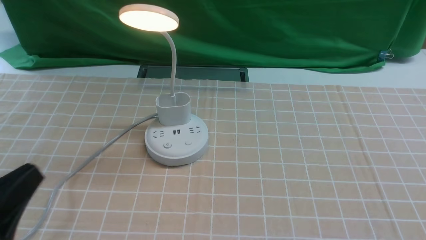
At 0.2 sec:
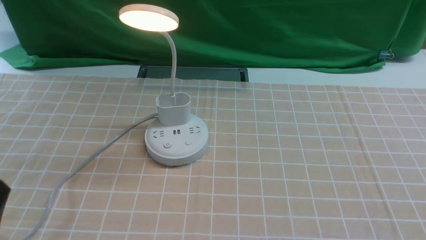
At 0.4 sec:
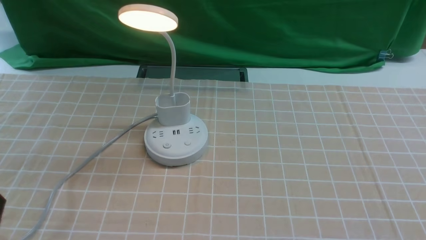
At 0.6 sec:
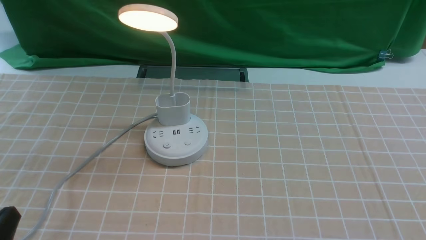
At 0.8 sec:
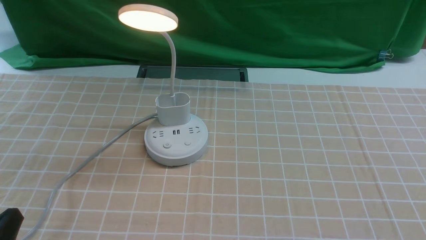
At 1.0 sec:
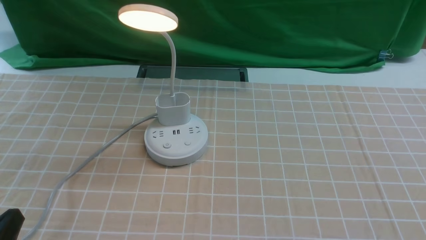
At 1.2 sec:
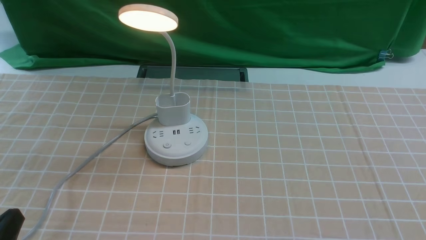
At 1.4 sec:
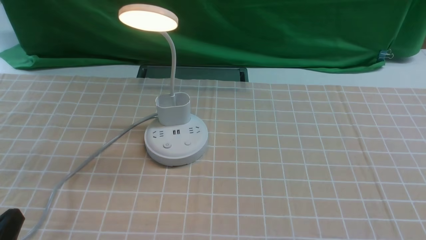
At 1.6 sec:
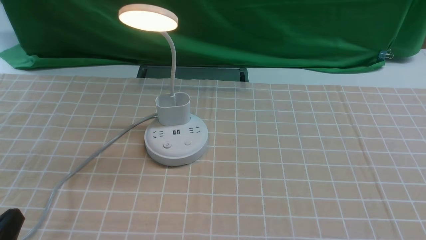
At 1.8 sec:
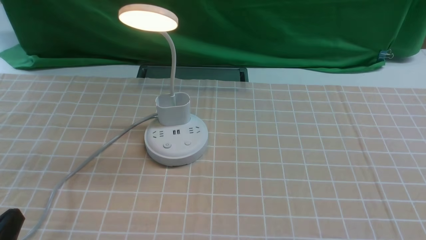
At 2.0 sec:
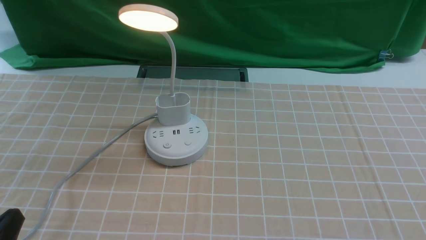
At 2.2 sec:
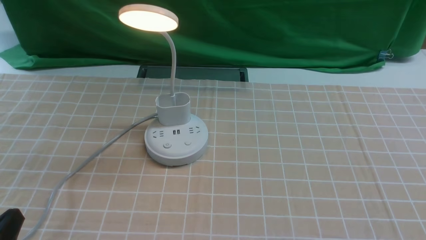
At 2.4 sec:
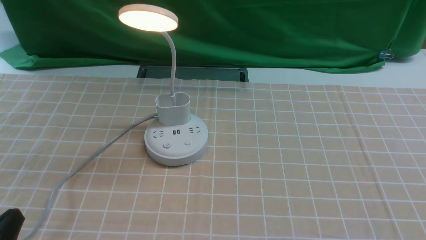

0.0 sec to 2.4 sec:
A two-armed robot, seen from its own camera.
0.0 sec to 1.2 sec: The left gripper heads downward, covering some 10 cm.
1.2 sec to 2.4 sec: Both grippers stay put.
